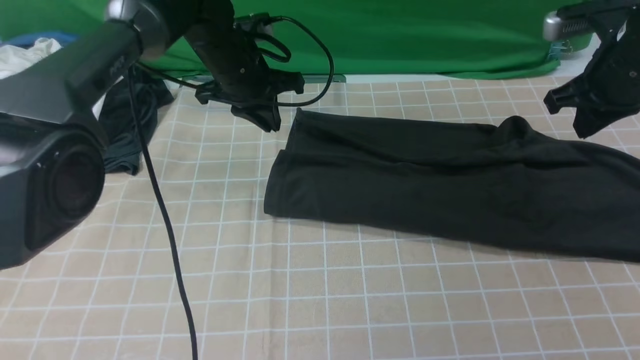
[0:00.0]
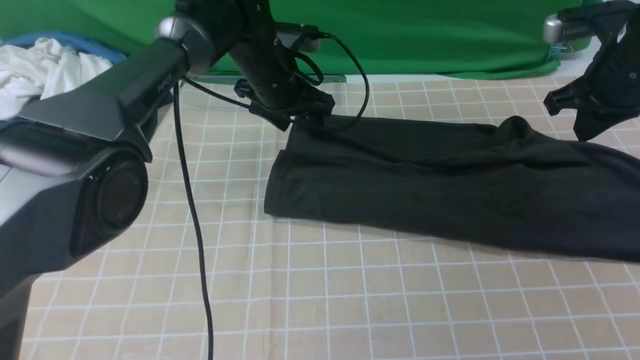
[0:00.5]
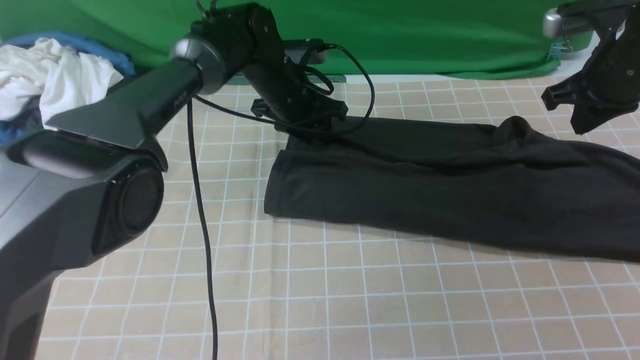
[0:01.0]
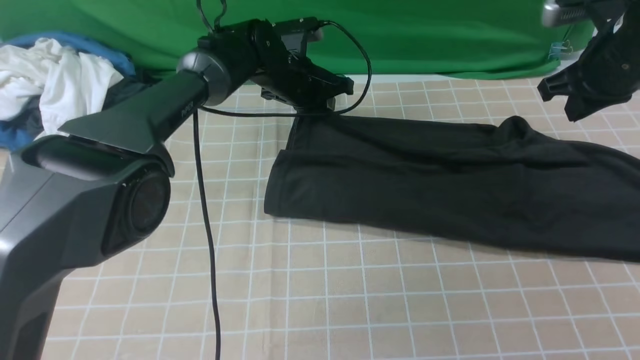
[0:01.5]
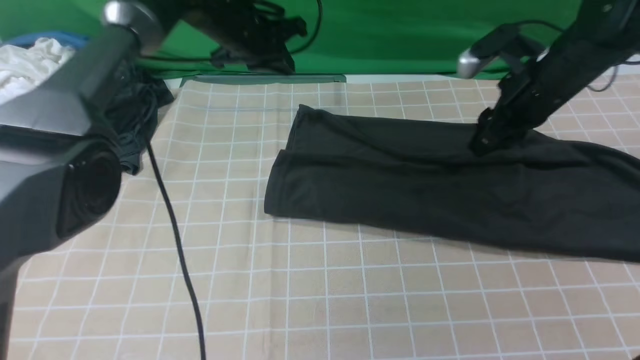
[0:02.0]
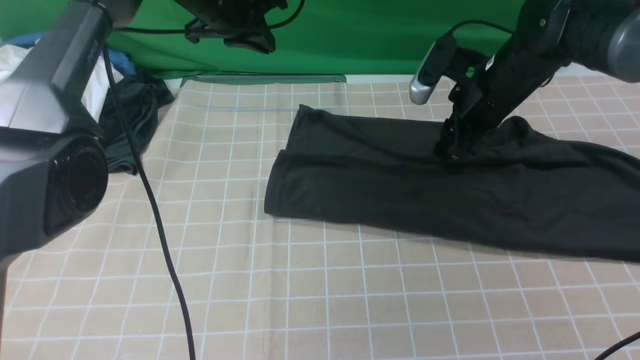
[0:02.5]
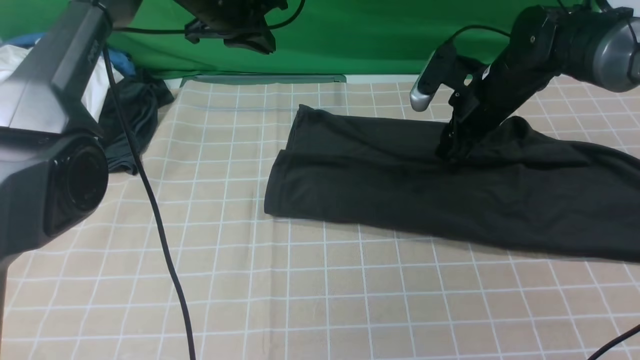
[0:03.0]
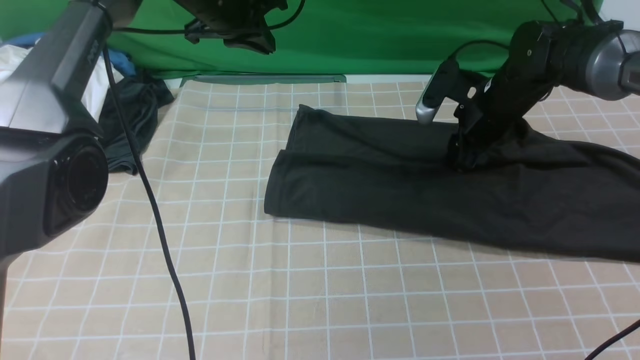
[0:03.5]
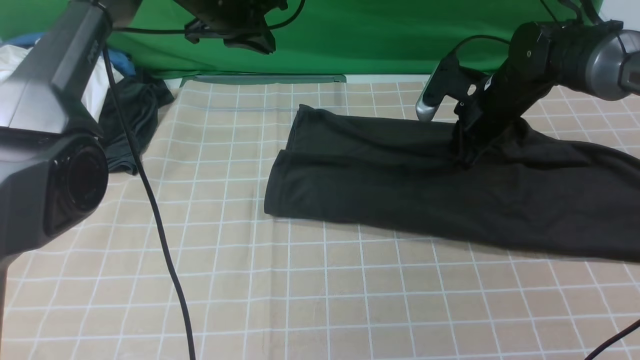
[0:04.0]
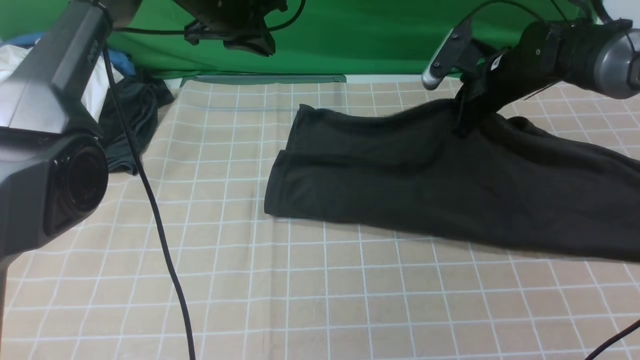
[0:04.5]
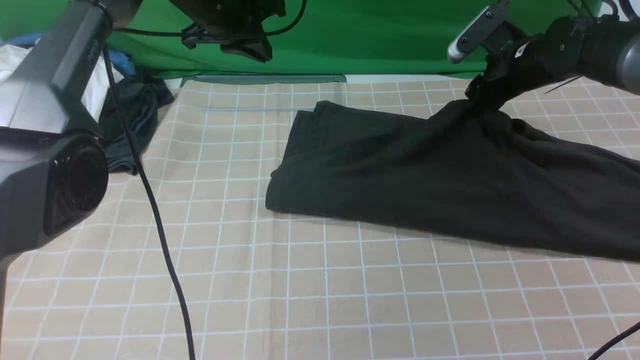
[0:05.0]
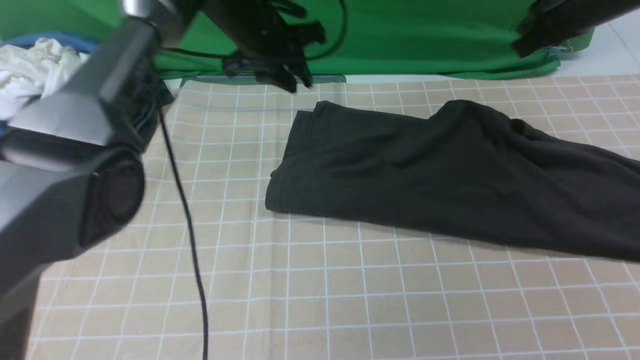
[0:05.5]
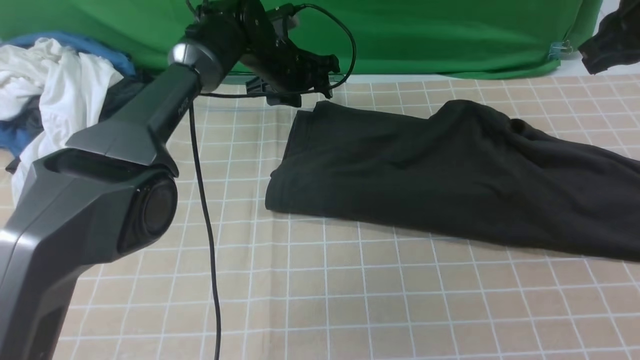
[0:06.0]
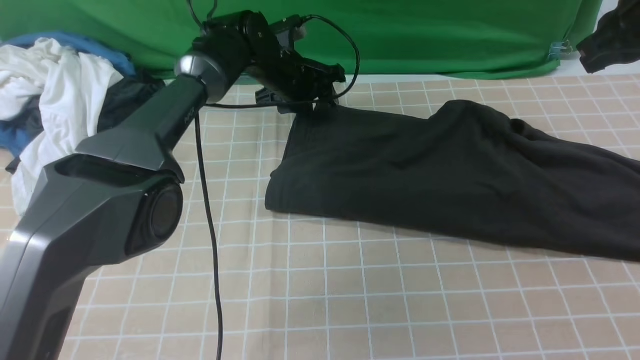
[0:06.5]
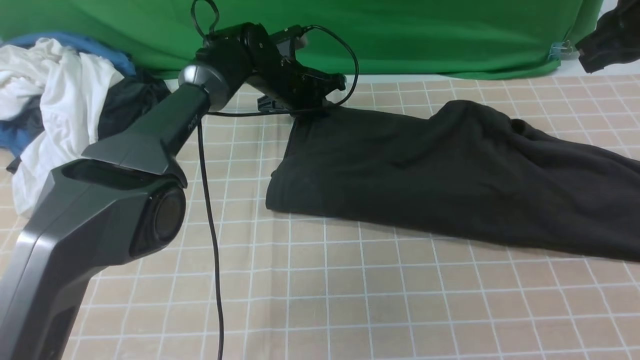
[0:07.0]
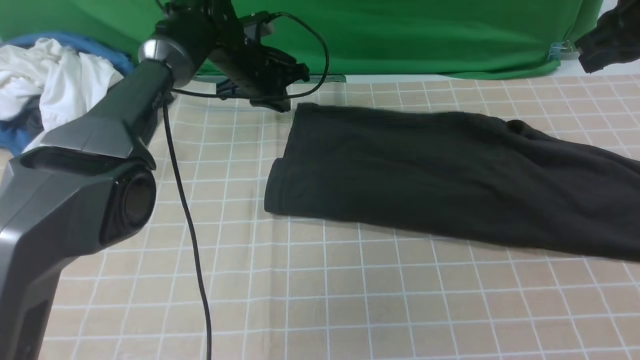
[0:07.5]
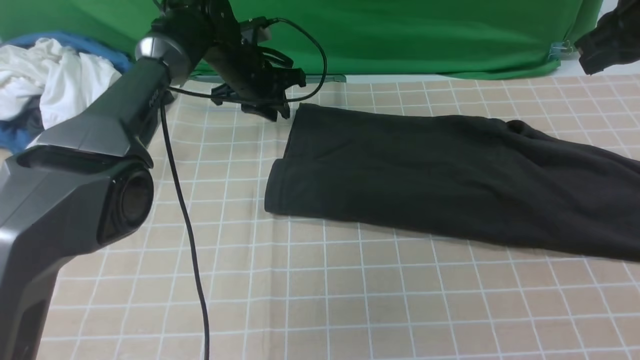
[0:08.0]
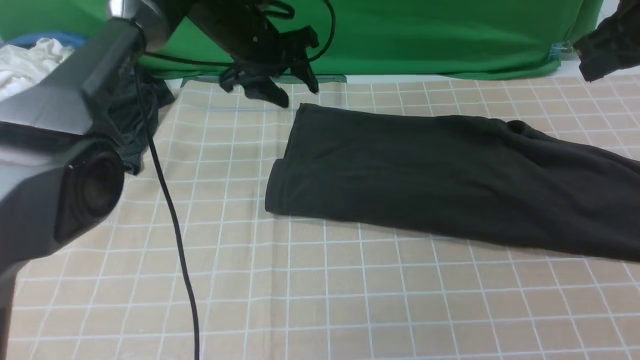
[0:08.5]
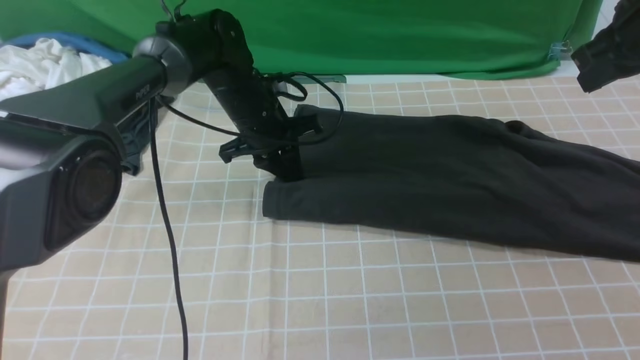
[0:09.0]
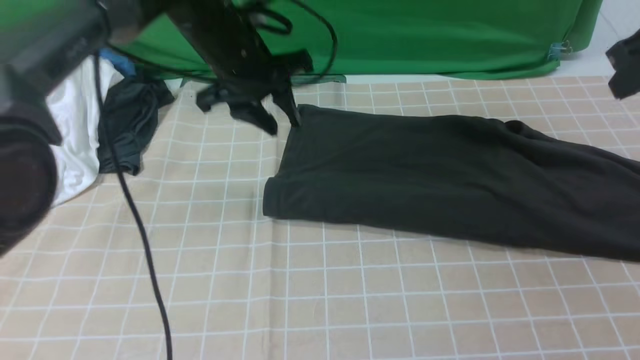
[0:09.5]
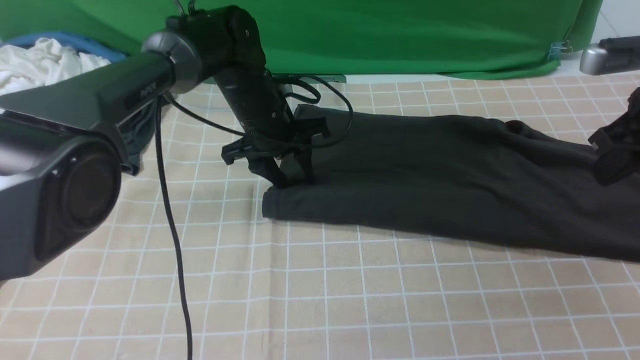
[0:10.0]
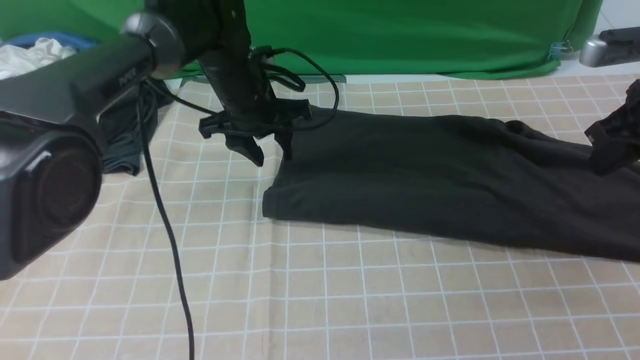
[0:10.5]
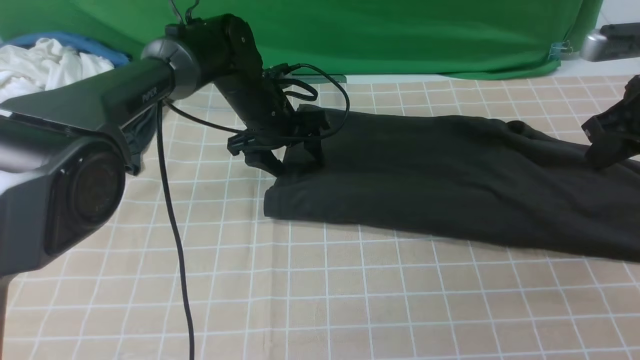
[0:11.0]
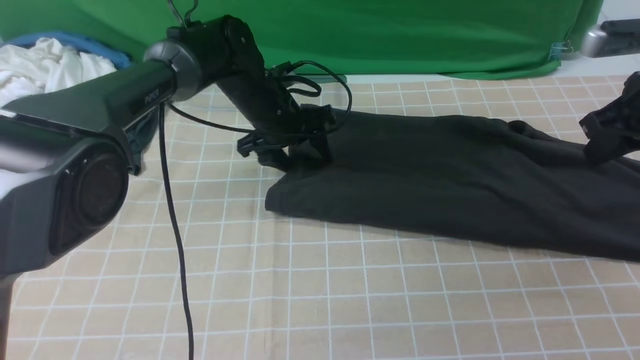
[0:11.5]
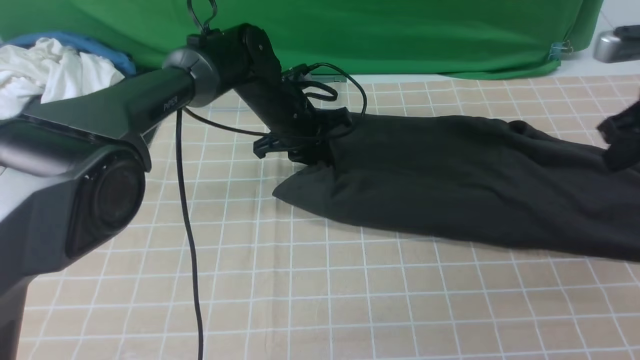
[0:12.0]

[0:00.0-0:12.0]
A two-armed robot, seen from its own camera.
Step, 0:00.0 to 0:07.5: use both arms to drag the lower edge of the fabric forward and fold it over the upper edge.
0:00.0 to 0:02.0: The right gripper heads to the left, covering roughly 5 cm, and opens its fingers, while the left gripper travels downward and back again, approximately 5 cm each way, and opens, then closes again.
0:02.0 to 0:04.0: The right gripper goes about 5 cm downward, and closes its fingers.
0:04.0 to 0:06.0: The right gripper shifts approximately 20 cm upward, to the right and backward, and opens, then closes once more. Meanwhile the left gripper shifts some 15 cm downward and to the right, and opens its fingers.
0:06.0 to 0:08.0: The left gripper closes.
0:08.0 to 0:10.0: The left gripper goes some 10 cm backward, while the right gripper shifts some 10 cm downward and backward.
0:10.0 to 0:12.0: The left gripper closes up.

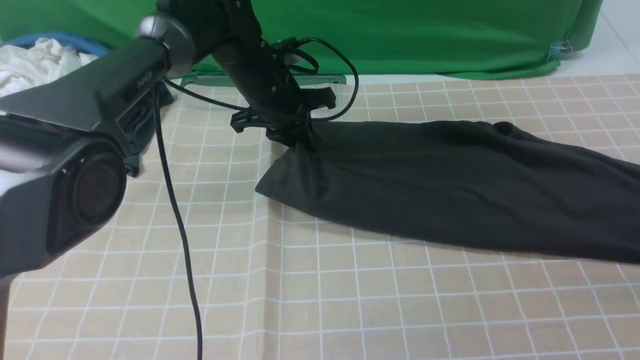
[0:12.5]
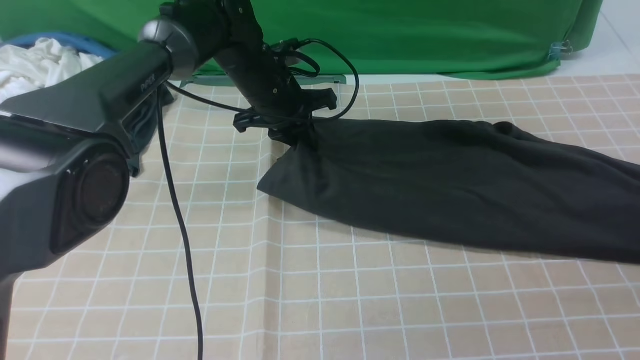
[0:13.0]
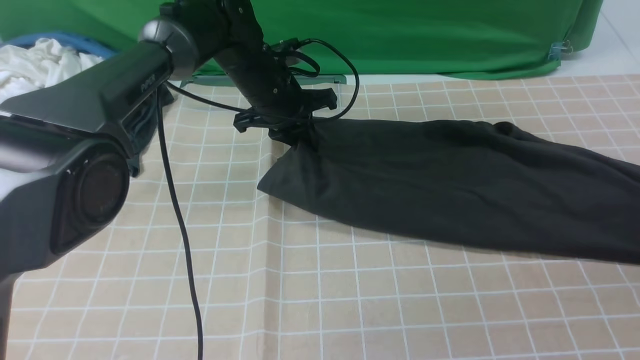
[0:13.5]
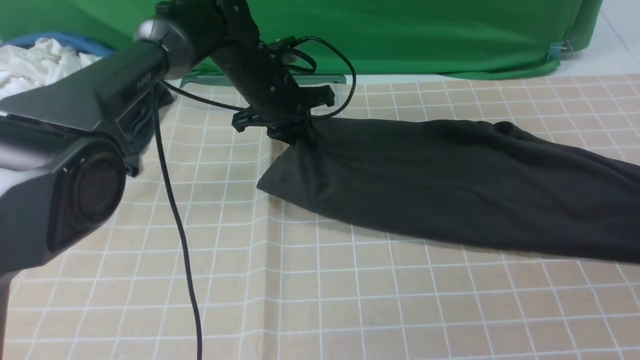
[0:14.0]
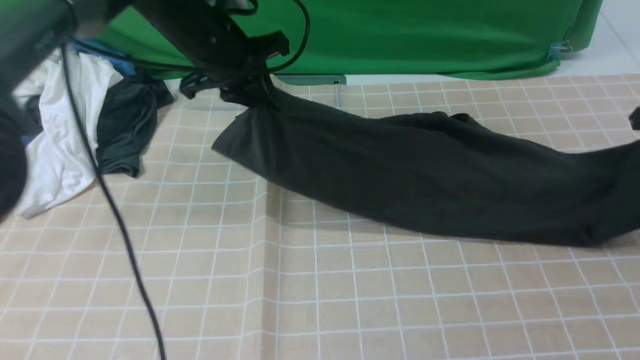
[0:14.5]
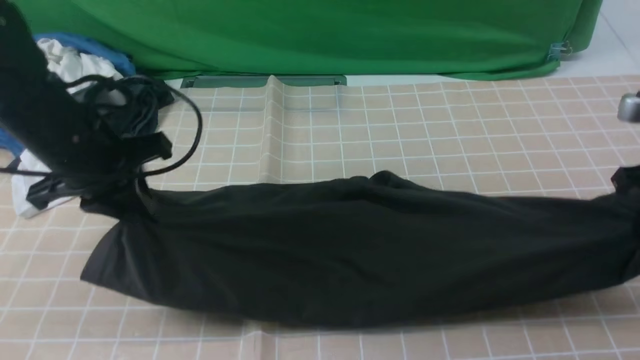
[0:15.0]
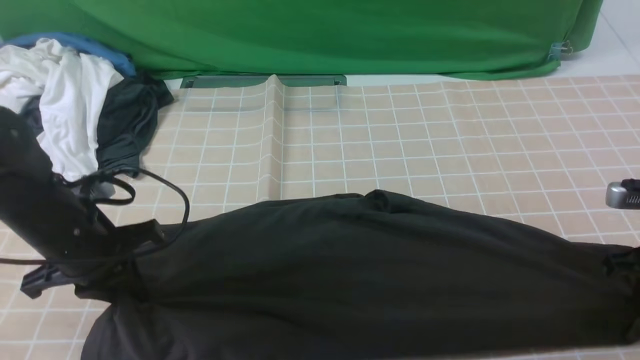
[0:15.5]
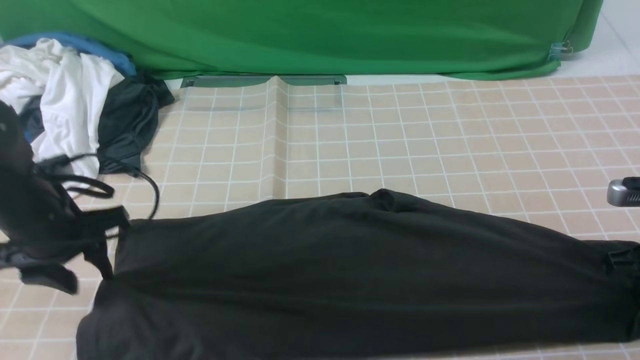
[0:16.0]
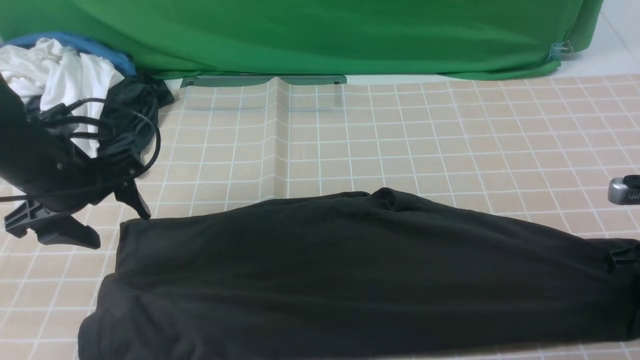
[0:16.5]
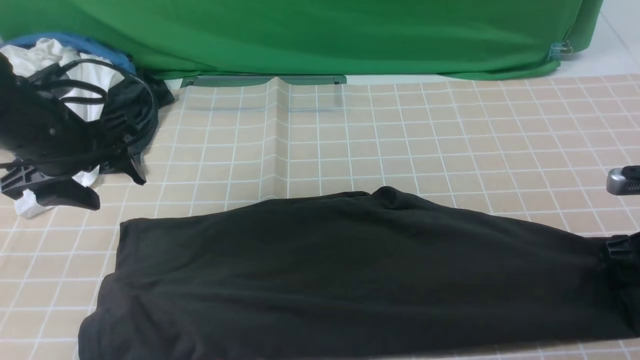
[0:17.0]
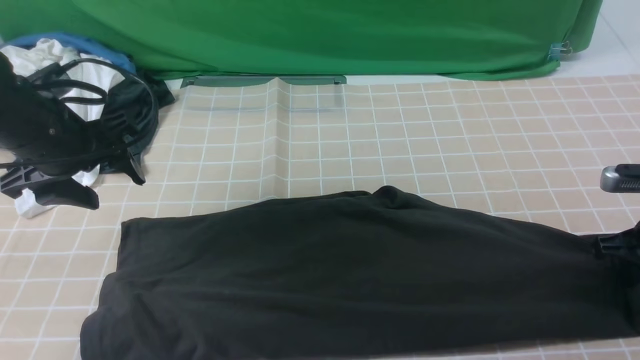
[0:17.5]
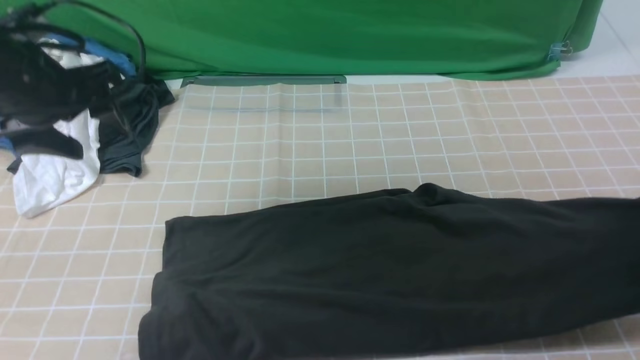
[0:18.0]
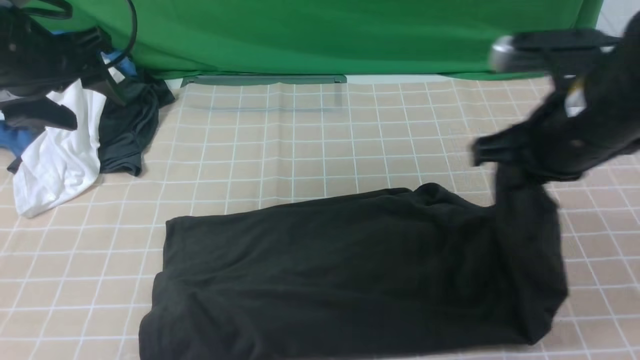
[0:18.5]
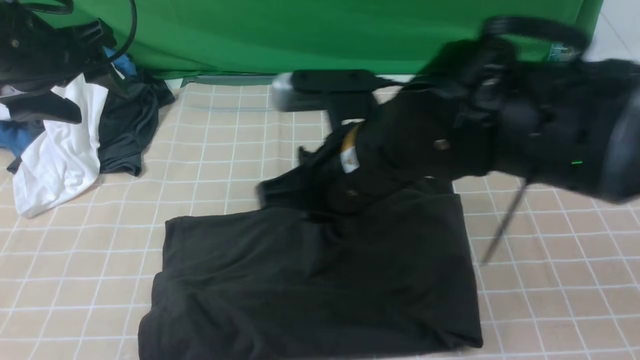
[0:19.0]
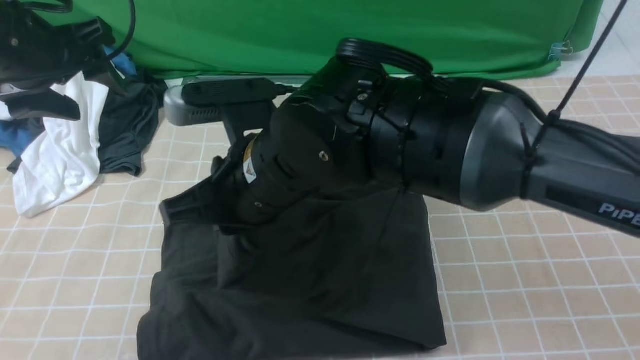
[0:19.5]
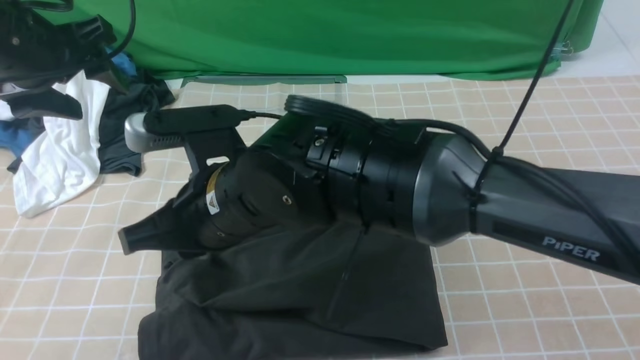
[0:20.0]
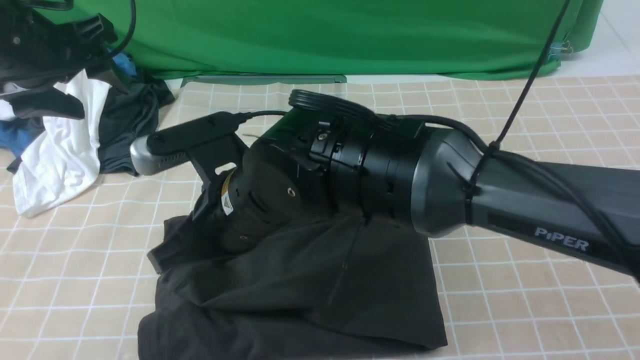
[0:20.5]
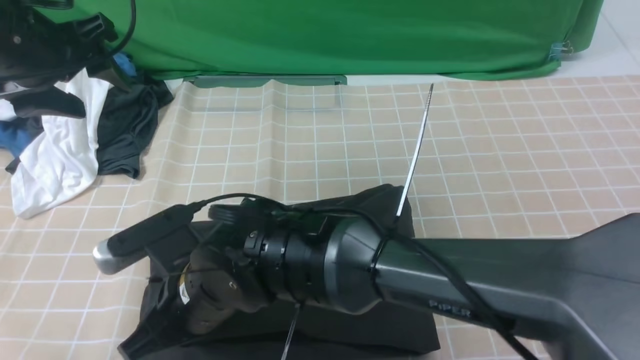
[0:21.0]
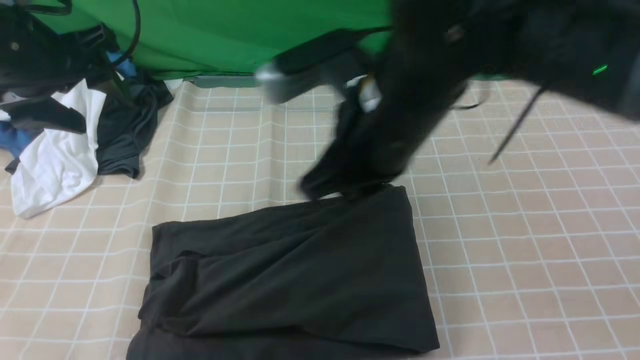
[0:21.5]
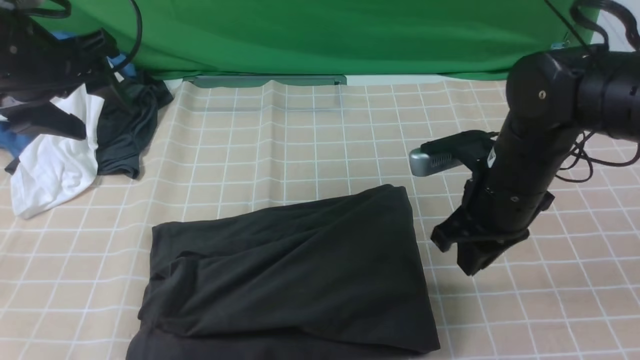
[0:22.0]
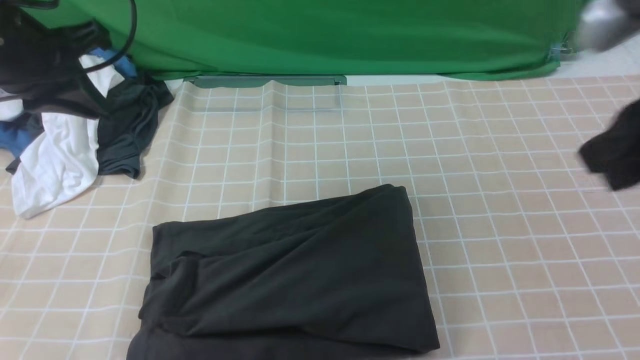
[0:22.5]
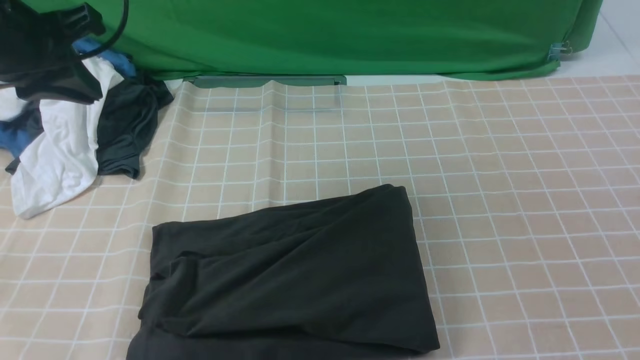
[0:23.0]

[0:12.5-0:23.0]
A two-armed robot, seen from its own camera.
Step, 0:14.5 to 0:21.0: use the right arm to drag the right edge of the fabric to the left and folds it over the left edge.
0:12.5 to 0:14.5: The left gripper travels to the left and upward by roughly 10 cm. The right gripper goes some 10 cm to the left and forward, and opens and closes again.
0:14.5 to 0:16.5: The left gripper travels to the left and backward by approximately 20 cm, and opens up. The right gripper heads backward and downward, covering roughly 15 cm, and opens.
0:16.5 to 0:19.0: The left gripper moves upward, about 10 cm. The right gripper moves to the left, about 35 cm, and opens and closes again.
0:19.0 to 0:21.0: The right gripper travels to the left and downward by approximately 15 cm.
0:21.0 to 0:23.0: The left gripper closes; the right gripper is displaced to the right and backward by some 40 cm.
